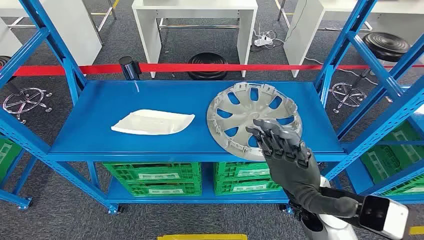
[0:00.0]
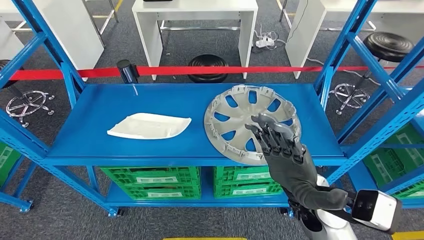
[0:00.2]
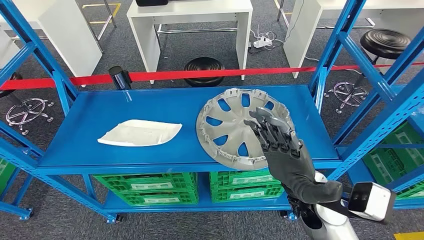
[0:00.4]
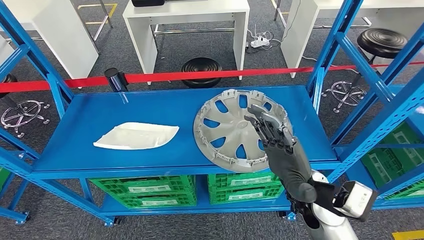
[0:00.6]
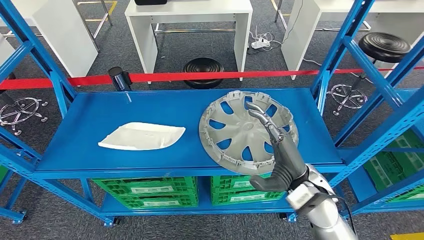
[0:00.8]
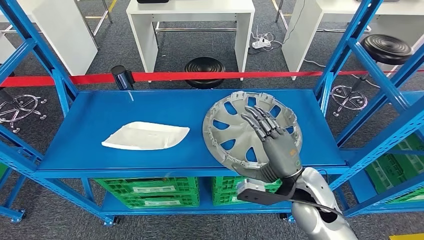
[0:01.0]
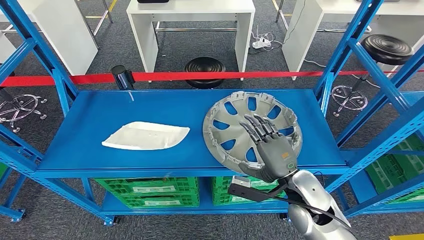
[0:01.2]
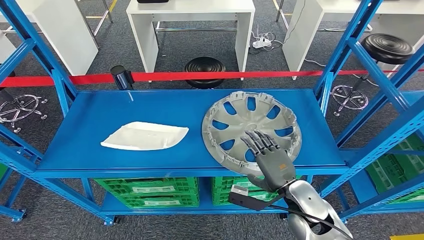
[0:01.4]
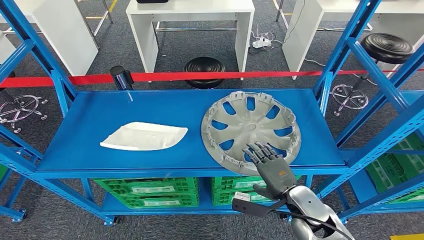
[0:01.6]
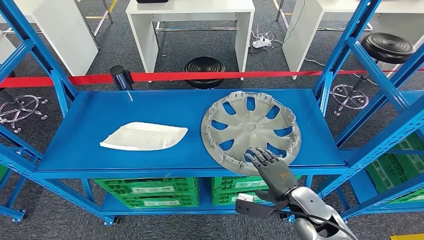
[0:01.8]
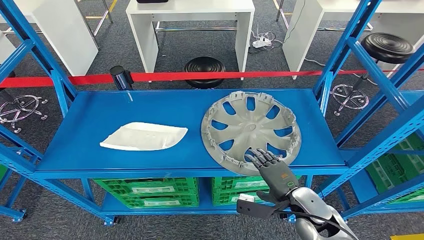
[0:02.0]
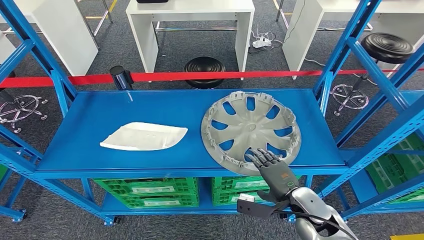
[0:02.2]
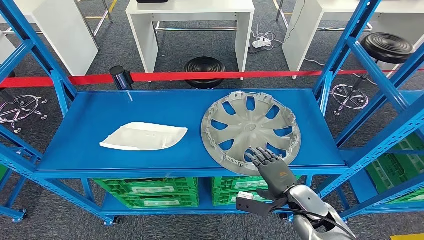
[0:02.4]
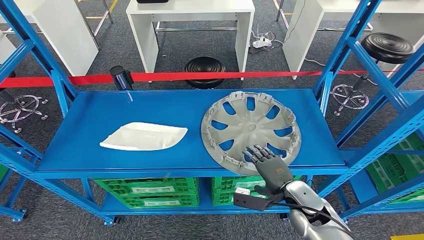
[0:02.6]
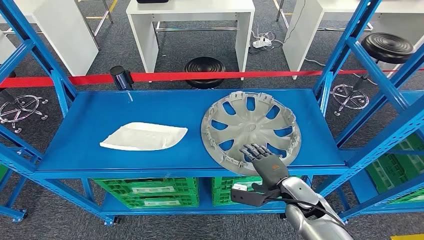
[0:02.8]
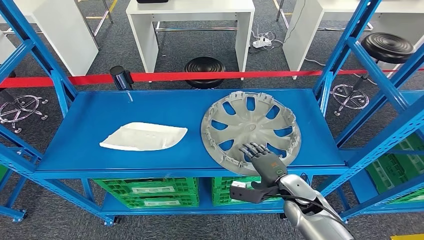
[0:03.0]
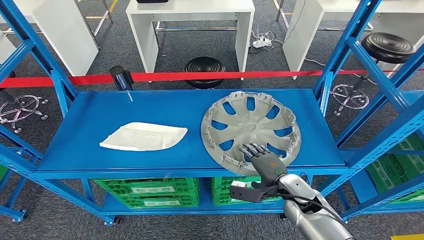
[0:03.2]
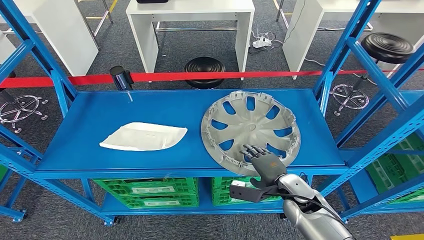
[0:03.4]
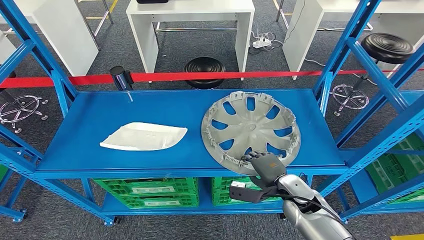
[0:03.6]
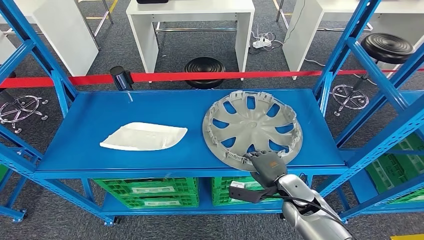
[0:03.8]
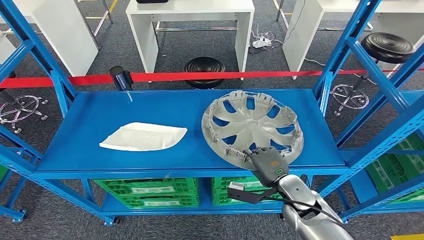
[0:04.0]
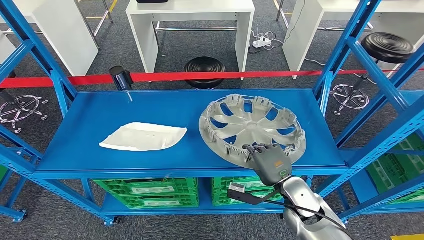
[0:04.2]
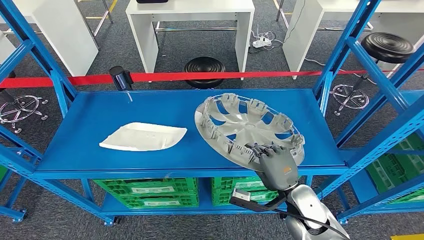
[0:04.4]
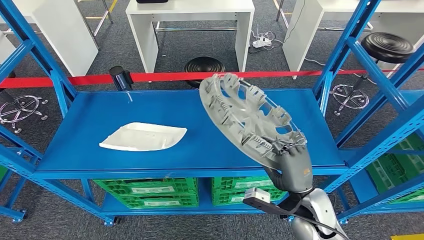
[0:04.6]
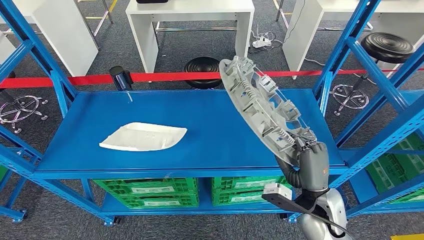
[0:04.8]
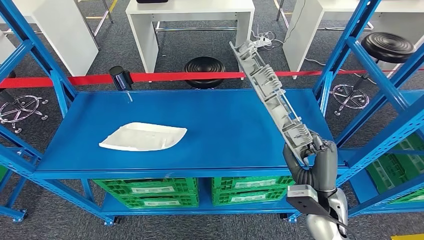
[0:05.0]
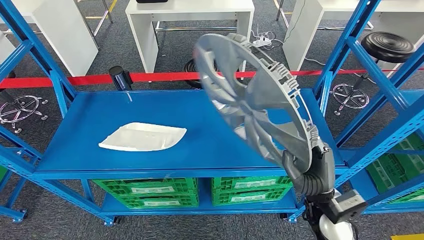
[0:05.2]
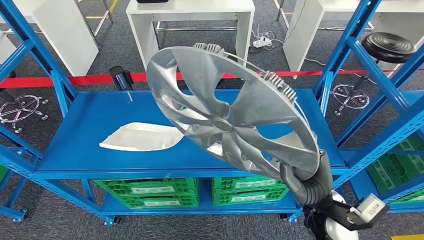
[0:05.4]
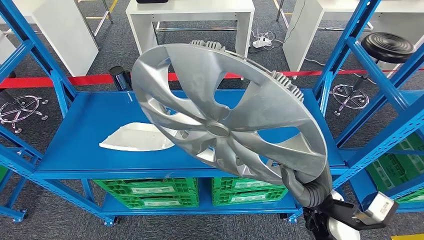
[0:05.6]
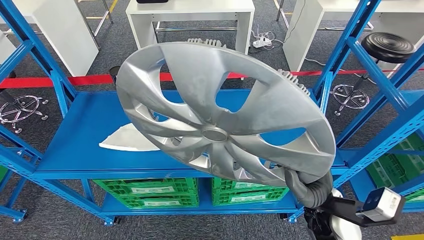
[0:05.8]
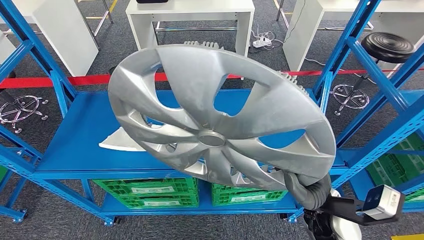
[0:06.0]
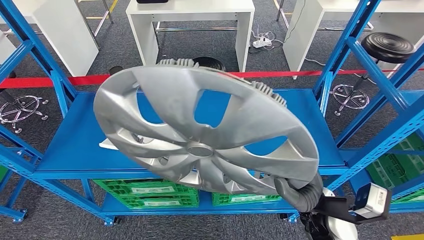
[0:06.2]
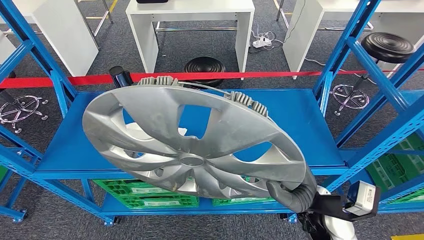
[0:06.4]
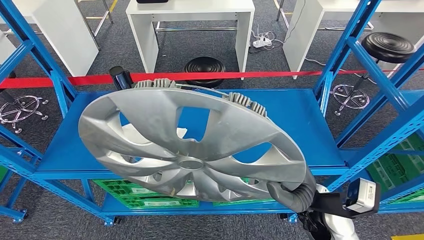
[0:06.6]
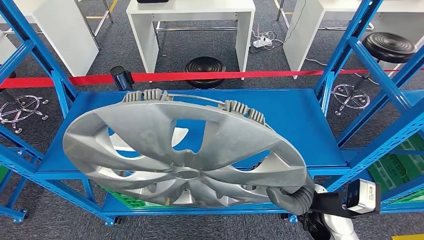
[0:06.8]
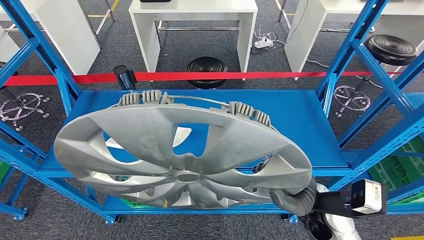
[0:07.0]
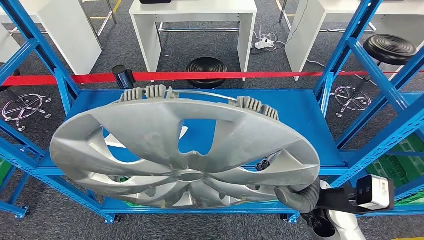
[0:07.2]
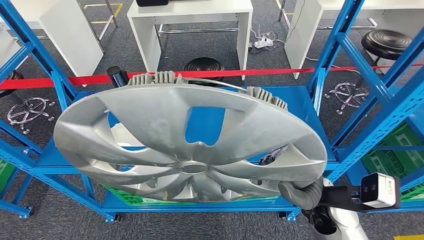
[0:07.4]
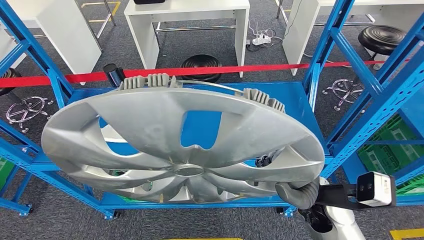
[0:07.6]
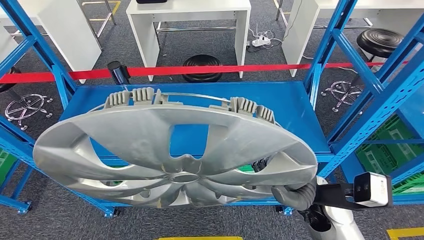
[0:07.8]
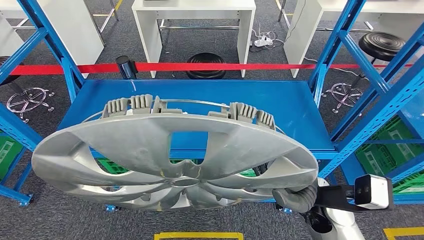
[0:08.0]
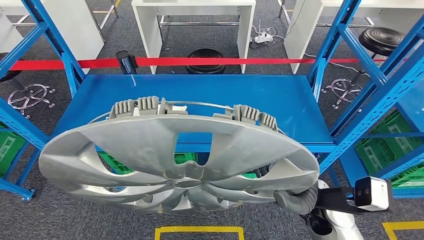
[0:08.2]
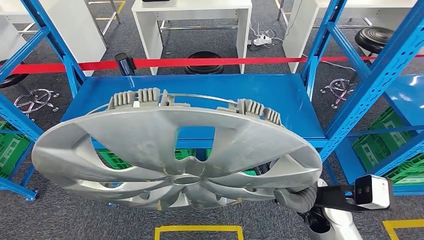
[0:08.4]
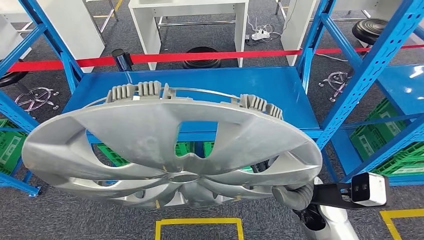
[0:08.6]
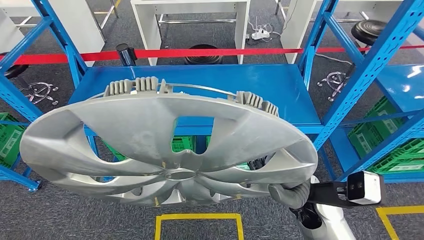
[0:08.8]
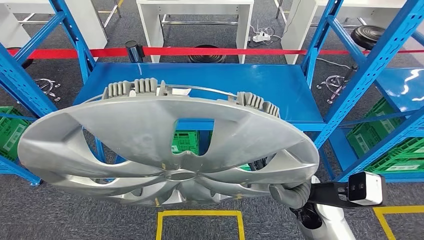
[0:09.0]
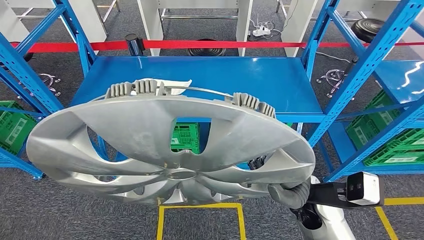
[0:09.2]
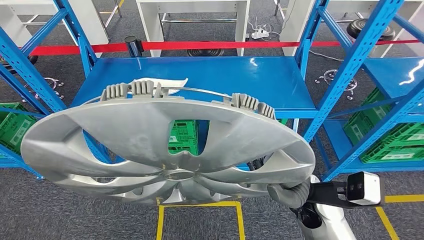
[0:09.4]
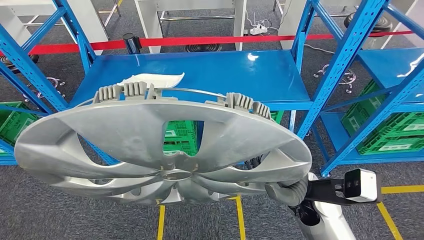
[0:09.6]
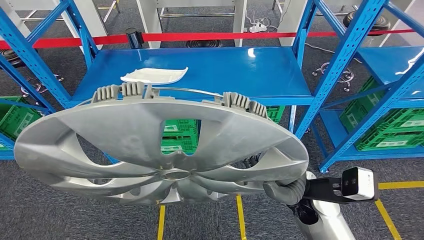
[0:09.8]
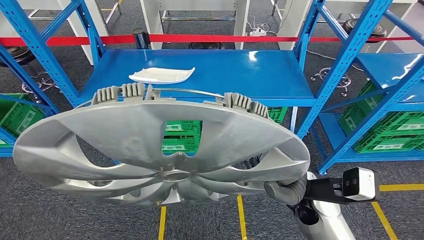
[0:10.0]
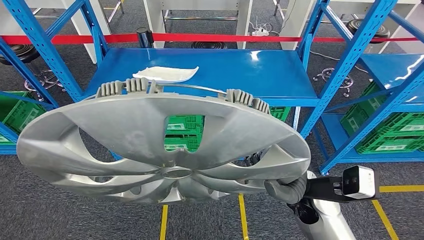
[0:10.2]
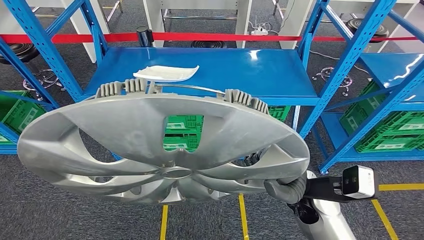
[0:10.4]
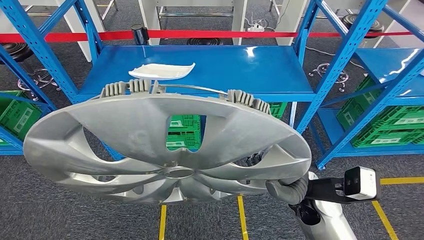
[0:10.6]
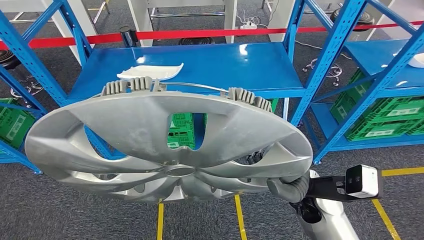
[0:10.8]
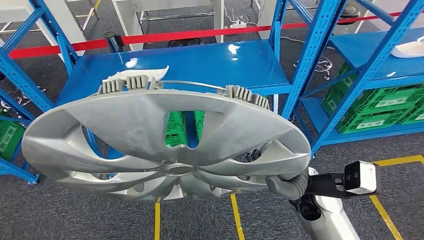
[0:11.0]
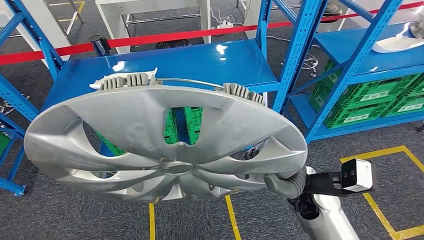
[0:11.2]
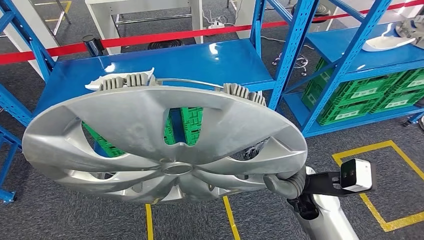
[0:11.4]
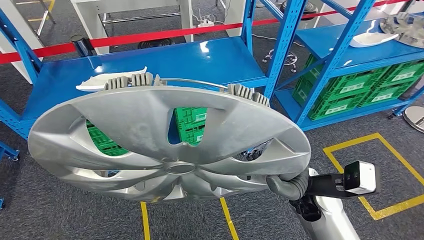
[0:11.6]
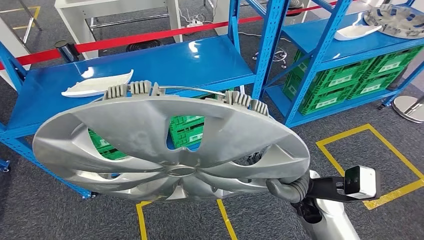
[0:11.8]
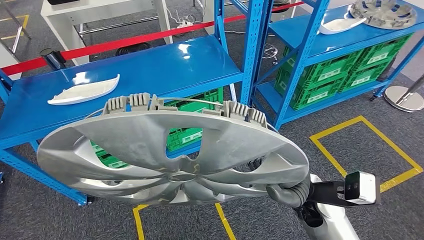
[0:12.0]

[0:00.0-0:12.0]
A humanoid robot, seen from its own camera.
Step, 0:00.0 to 0:06.0: Pick up the small component from the shelf.
0:01.6 to 0:03.0: The right hand ends up some 5 cm from where it was.
0:03.0 to 0:04.4: The right hand moves approximately 5 cm.

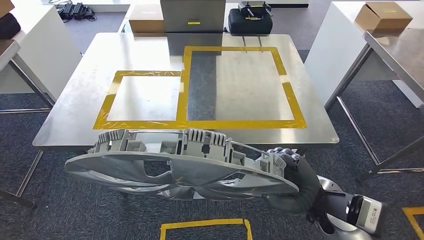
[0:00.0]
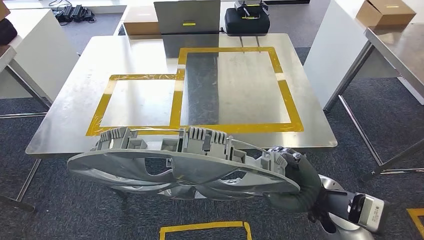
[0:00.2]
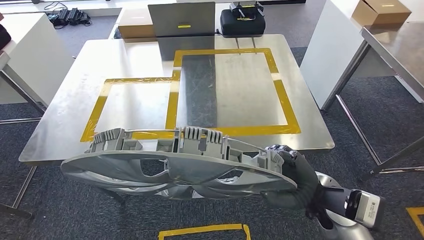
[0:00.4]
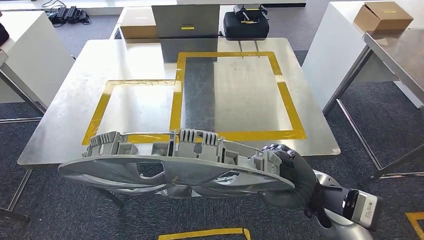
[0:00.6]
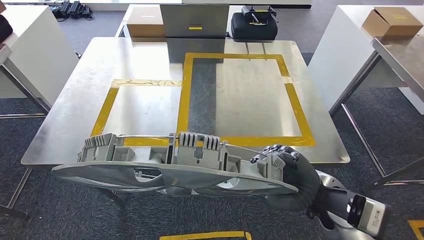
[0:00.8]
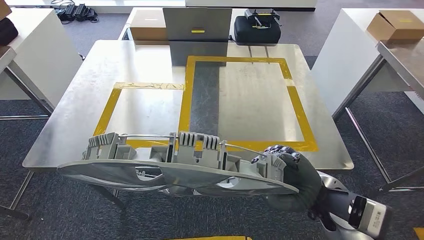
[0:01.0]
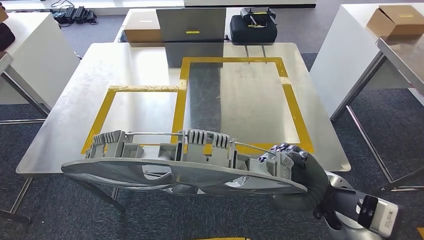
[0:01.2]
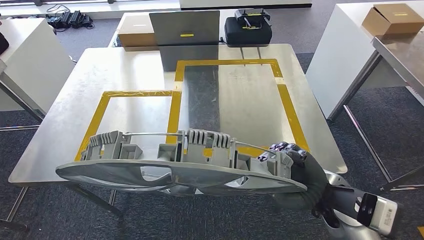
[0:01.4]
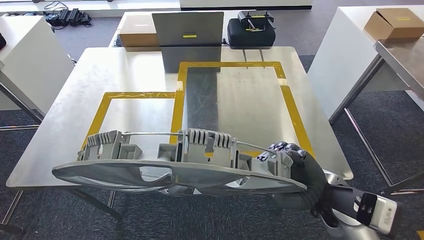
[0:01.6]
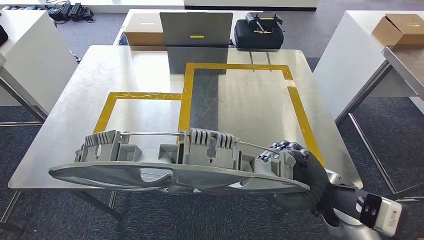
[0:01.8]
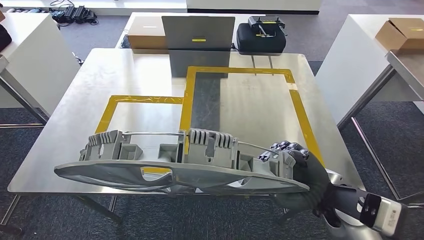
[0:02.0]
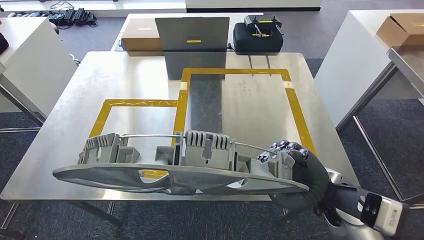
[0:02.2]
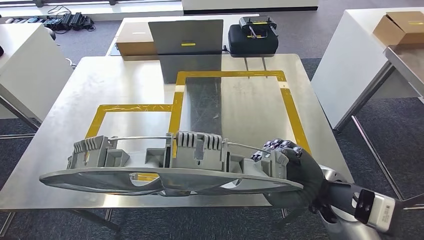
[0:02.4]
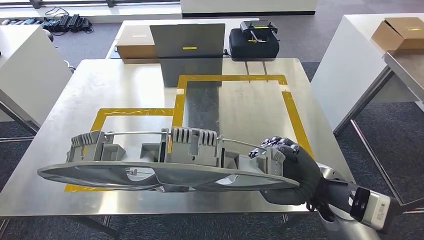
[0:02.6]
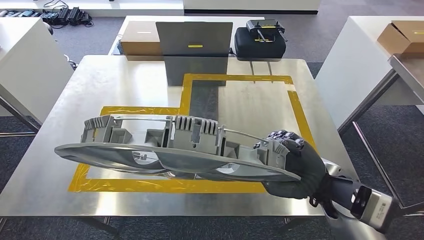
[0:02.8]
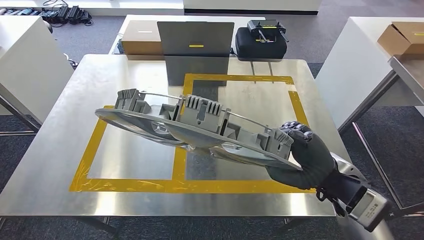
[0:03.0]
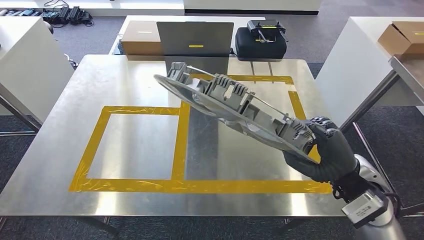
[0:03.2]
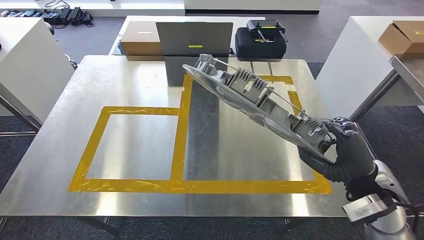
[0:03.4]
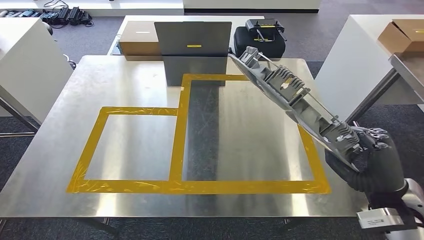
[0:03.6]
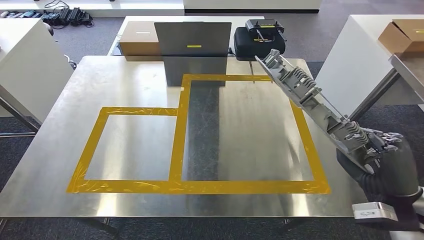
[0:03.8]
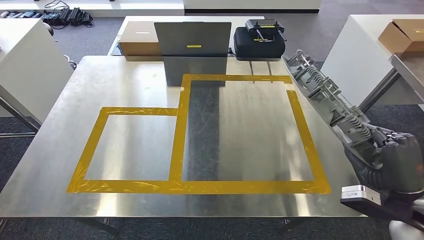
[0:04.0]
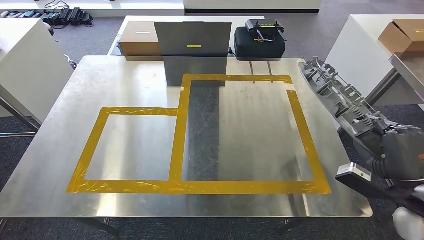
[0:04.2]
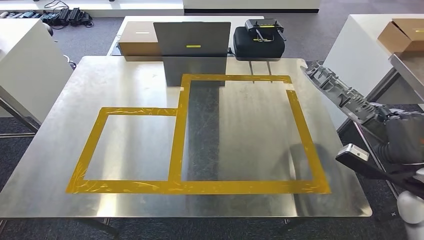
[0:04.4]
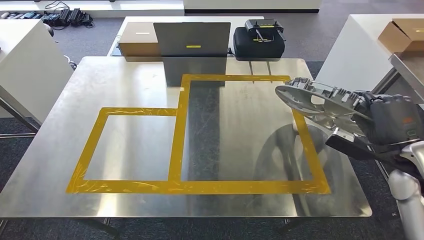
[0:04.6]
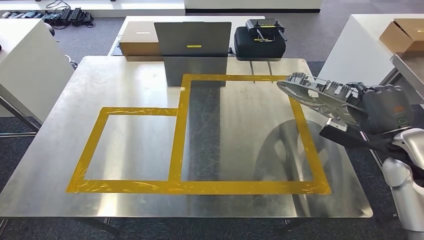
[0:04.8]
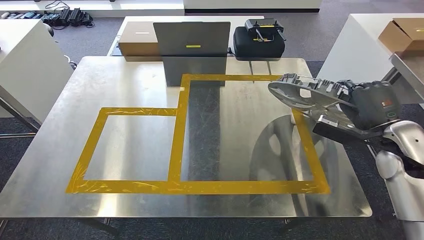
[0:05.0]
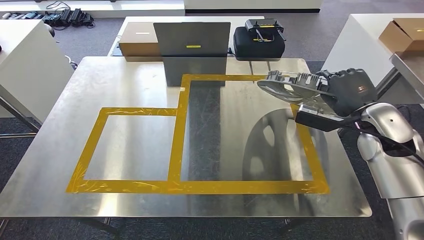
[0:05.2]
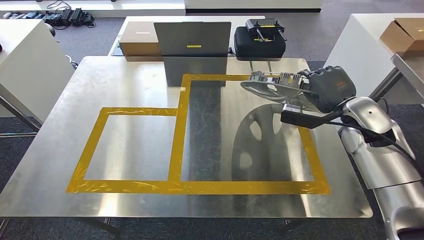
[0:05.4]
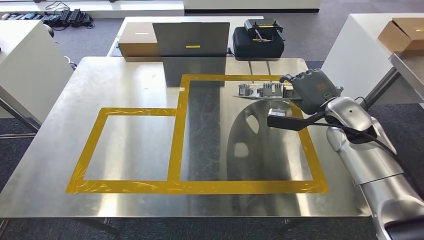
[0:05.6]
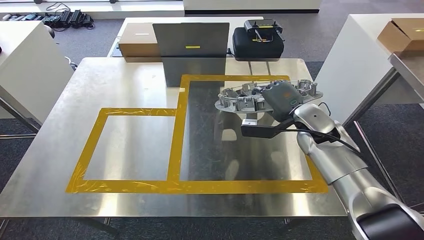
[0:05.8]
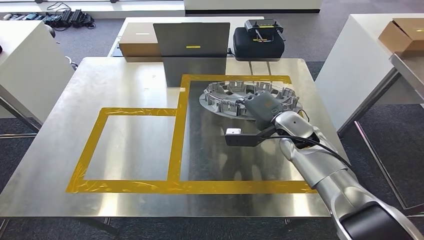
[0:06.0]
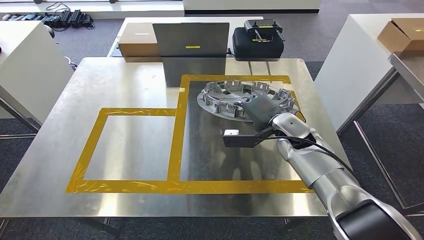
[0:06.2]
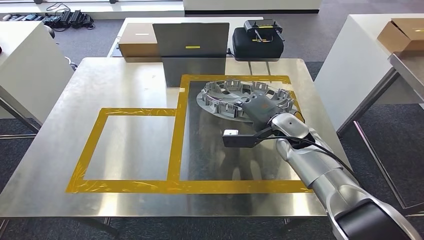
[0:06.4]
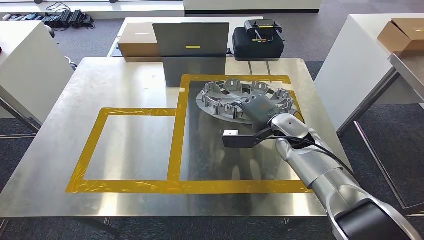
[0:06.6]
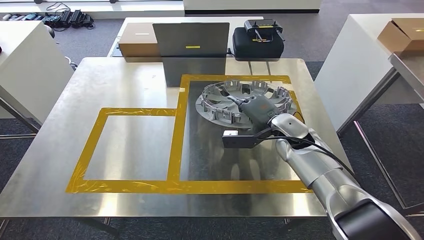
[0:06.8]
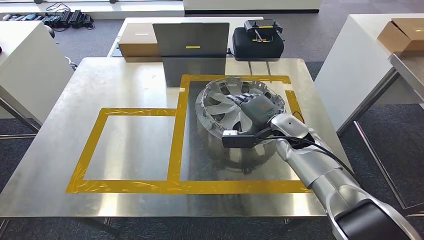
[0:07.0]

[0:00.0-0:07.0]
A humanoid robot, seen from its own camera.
Step, 0:00.0 to 0:02.2: Move the small component to the workbench.
